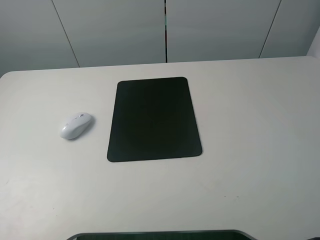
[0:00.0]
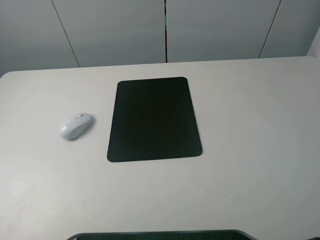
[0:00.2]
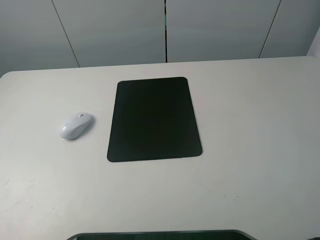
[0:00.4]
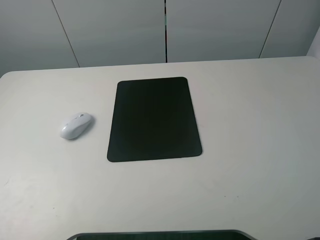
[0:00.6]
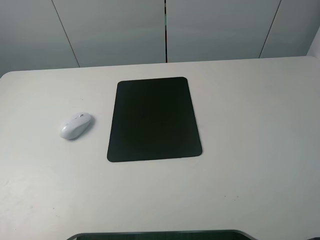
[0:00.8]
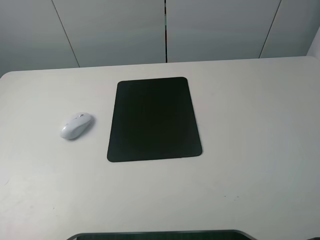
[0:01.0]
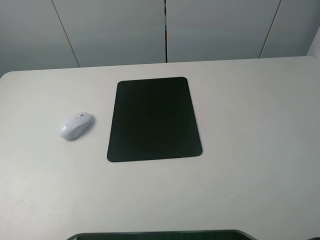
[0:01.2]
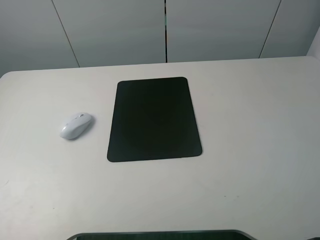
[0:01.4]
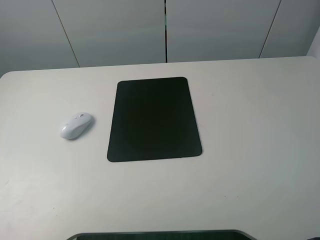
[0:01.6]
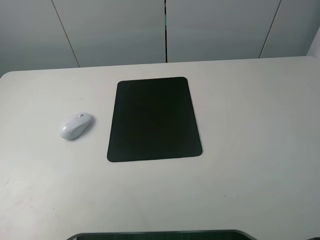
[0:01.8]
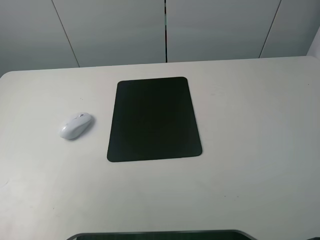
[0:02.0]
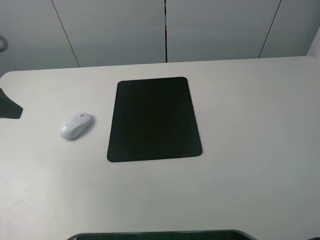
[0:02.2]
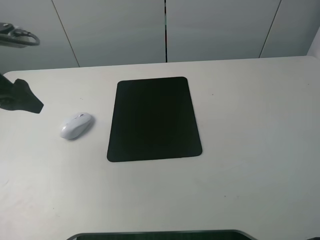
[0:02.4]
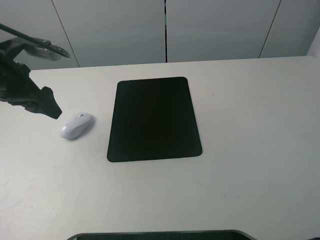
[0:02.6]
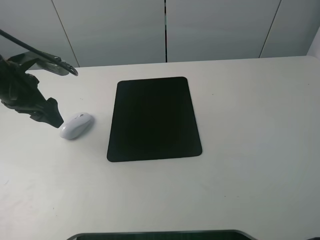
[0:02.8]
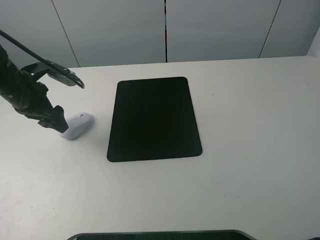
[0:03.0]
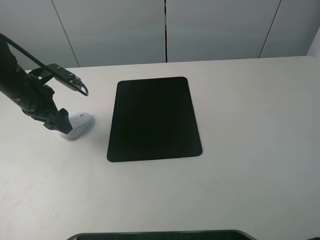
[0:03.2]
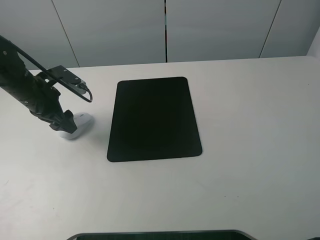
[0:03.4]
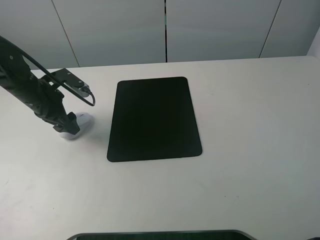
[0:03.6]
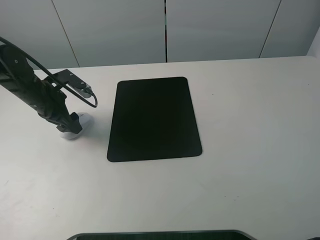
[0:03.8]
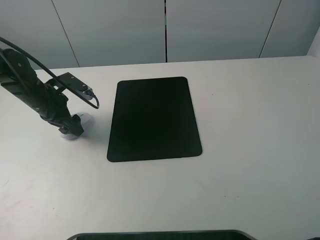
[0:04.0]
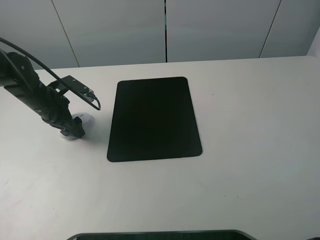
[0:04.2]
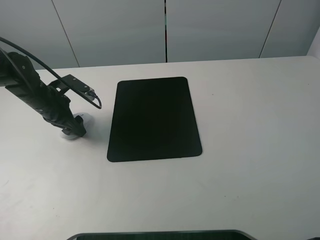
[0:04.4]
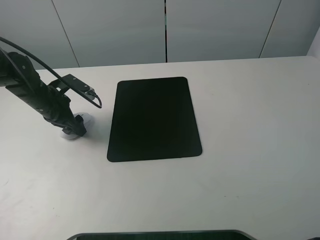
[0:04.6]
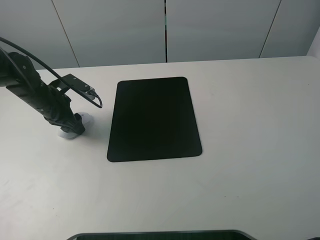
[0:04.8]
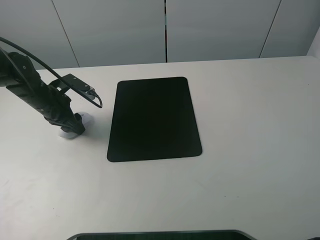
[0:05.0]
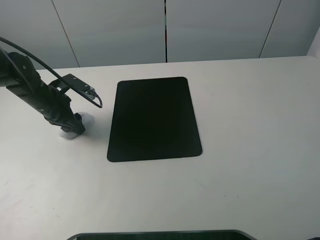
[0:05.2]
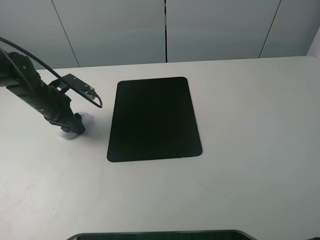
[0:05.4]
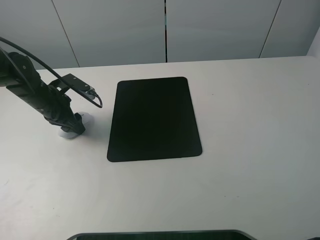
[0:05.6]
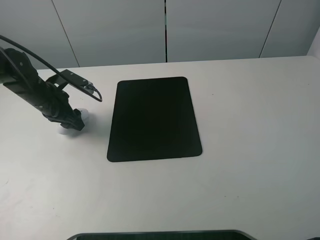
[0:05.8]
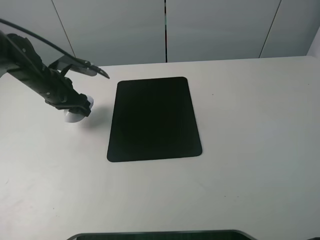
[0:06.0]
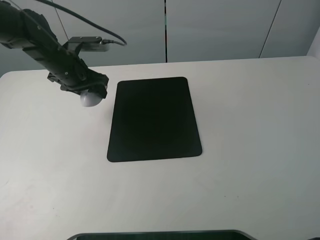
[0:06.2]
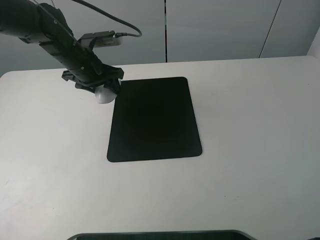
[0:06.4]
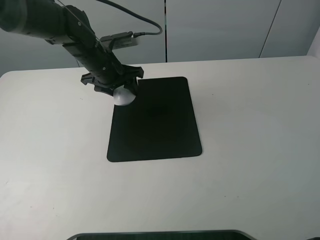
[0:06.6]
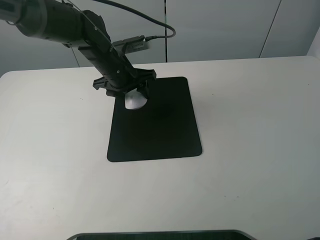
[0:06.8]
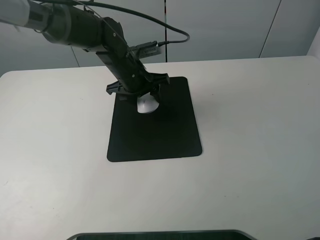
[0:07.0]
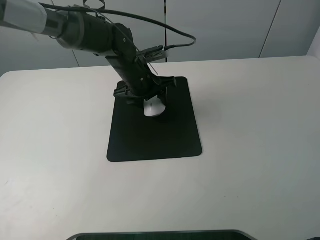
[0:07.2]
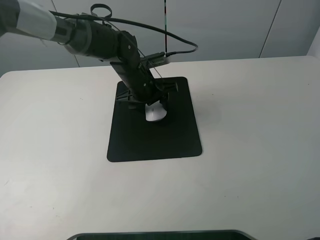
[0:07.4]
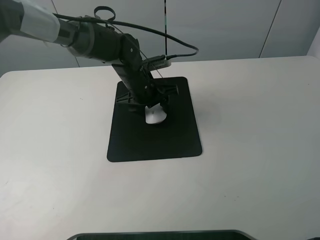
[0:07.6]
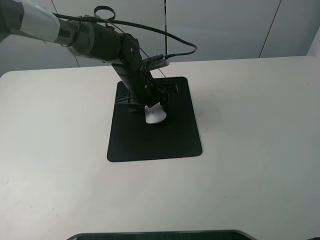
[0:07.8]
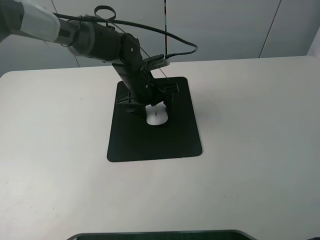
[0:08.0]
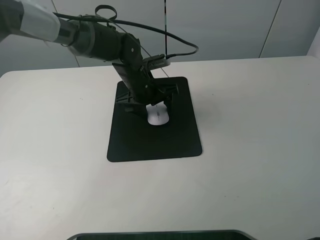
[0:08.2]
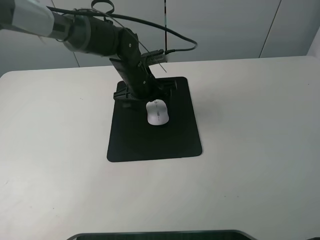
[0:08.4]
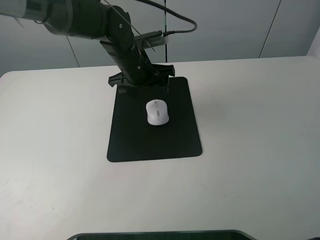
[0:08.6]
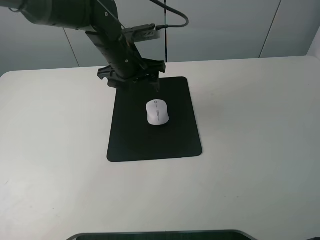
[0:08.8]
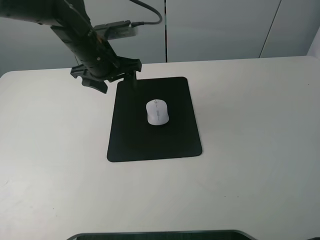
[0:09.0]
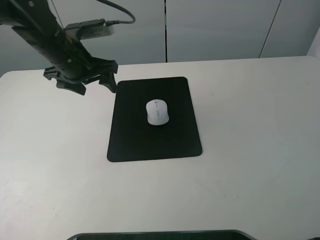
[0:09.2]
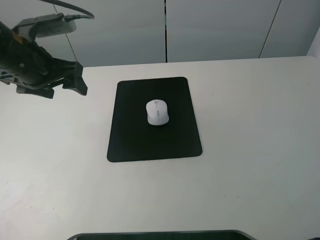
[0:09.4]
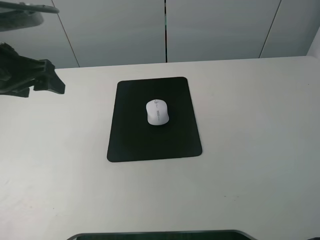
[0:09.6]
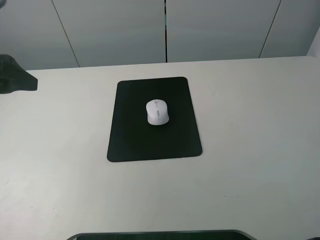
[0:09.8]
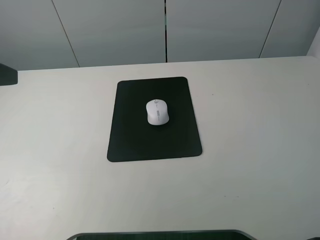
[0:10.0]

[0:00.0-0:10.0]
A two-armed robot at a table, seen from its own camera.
Step, 0:00.0 to 0:05.0: Grasp the mouse with the left gripper.
Step, 0:05.2 to 0:08.2: Place the mouse on the mouse mat with the left gripper.
0:01.4 to 0:02.8: The left gripper travels forward by approximately 30 cm.
0:02.8 to 0:04.2: The left gripper is displaced downward by approximately 10 cm.
0:04.2 to 0:05.8: The left gripper closes.
0:05.8 to 0:07.2: The left gripper goes about 20 cm to the right.
0:07.2 to 0:08.6: The left gripper opens its fingers.
0:08.6 to 0:10.0: The left gripper shifts some 35 cm to the left, backward and upward.

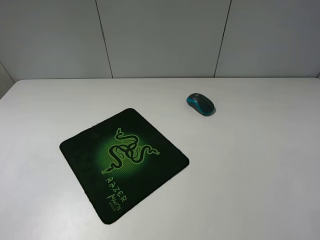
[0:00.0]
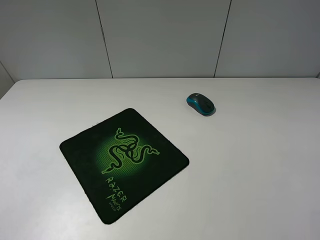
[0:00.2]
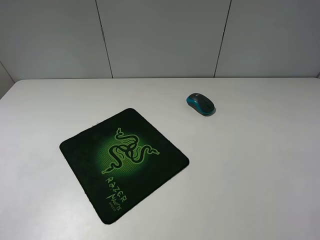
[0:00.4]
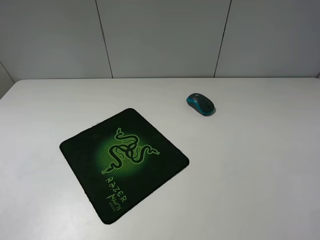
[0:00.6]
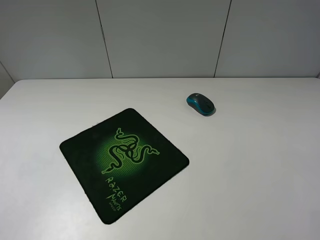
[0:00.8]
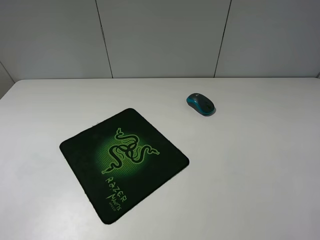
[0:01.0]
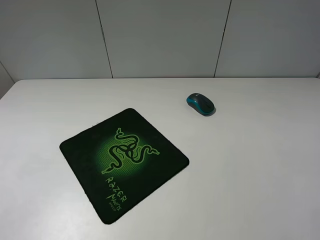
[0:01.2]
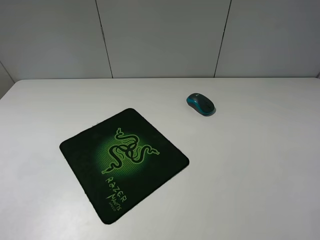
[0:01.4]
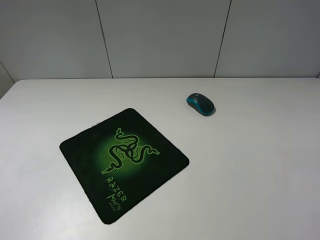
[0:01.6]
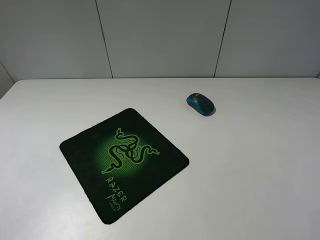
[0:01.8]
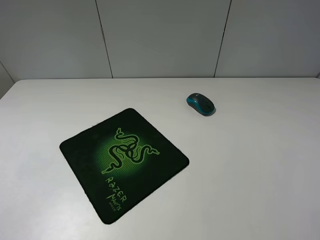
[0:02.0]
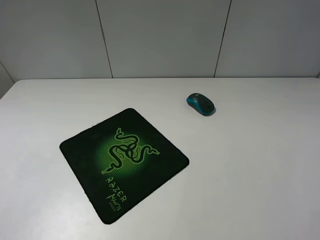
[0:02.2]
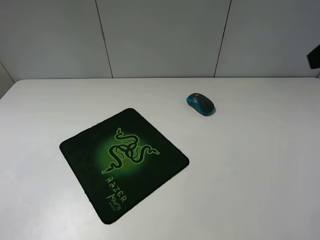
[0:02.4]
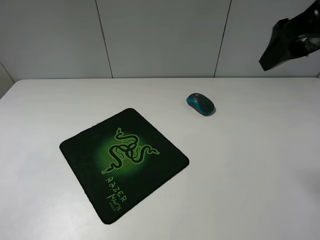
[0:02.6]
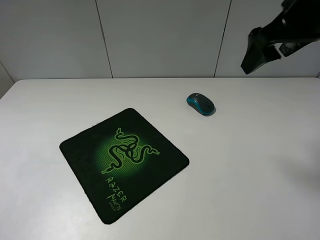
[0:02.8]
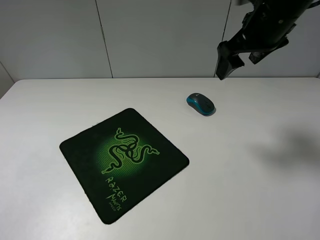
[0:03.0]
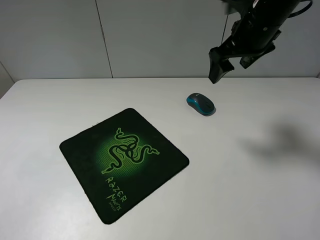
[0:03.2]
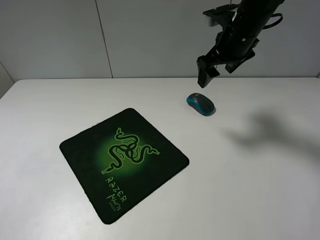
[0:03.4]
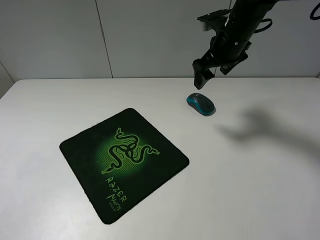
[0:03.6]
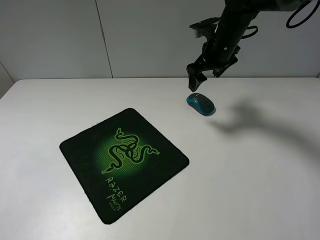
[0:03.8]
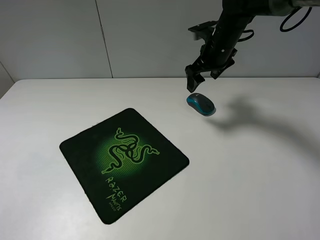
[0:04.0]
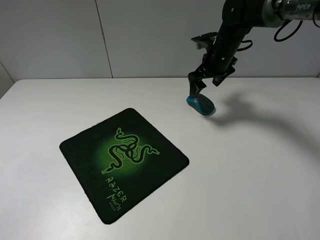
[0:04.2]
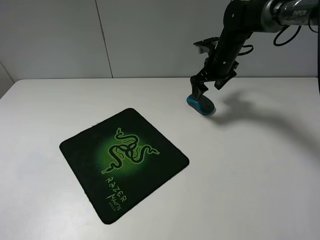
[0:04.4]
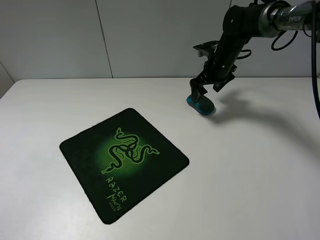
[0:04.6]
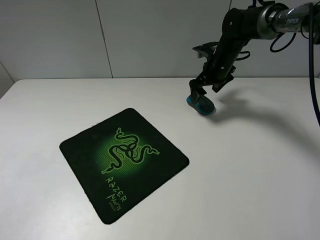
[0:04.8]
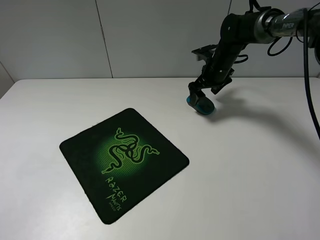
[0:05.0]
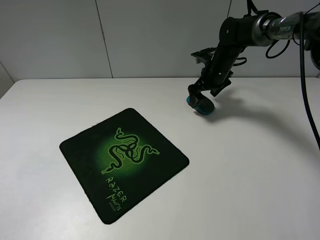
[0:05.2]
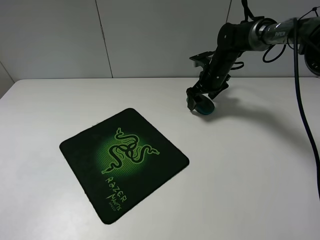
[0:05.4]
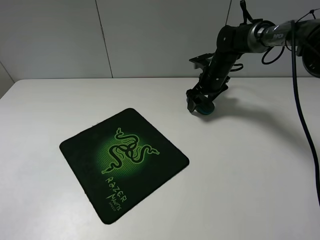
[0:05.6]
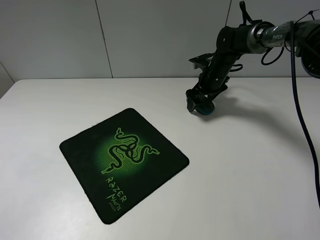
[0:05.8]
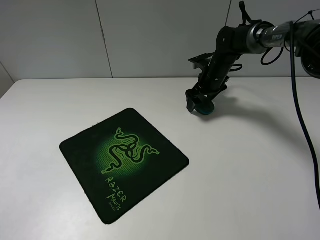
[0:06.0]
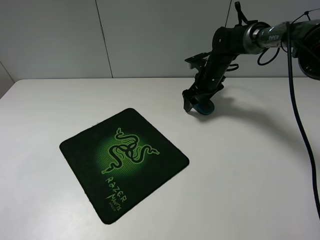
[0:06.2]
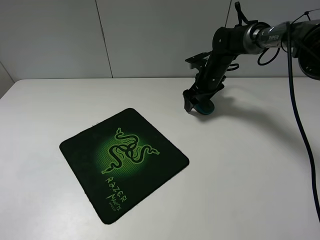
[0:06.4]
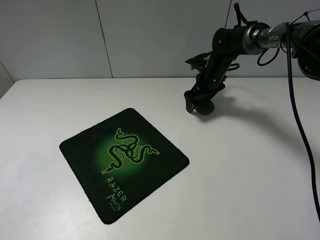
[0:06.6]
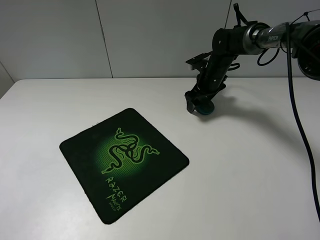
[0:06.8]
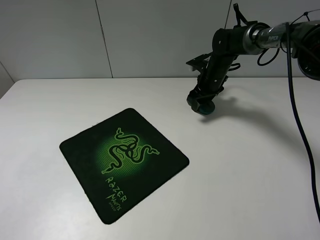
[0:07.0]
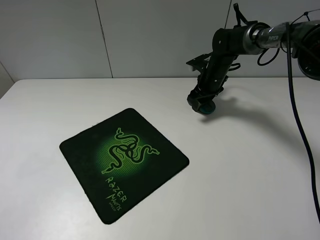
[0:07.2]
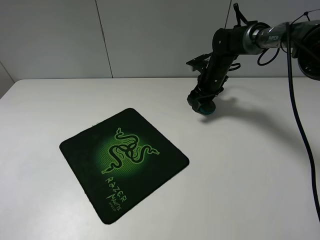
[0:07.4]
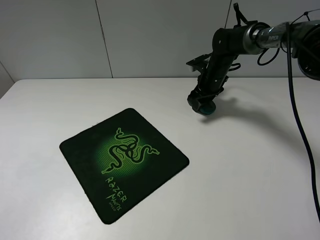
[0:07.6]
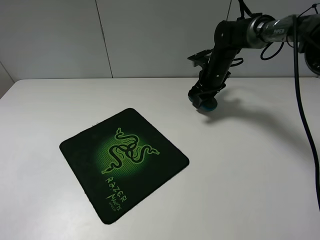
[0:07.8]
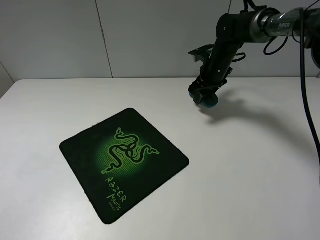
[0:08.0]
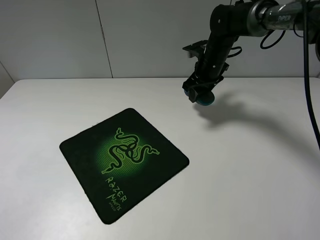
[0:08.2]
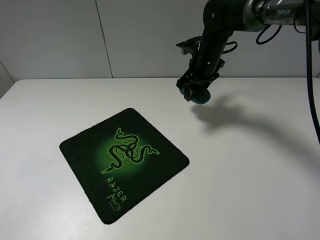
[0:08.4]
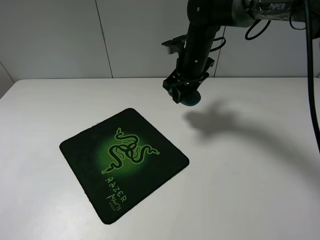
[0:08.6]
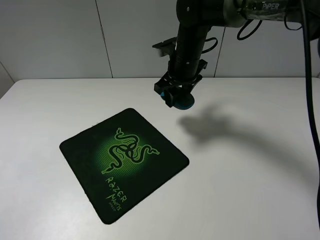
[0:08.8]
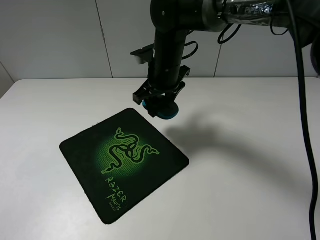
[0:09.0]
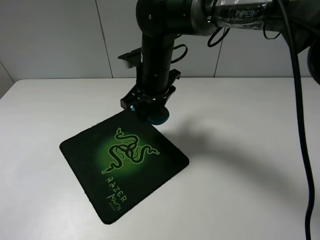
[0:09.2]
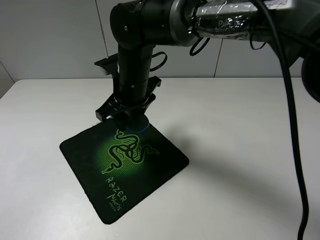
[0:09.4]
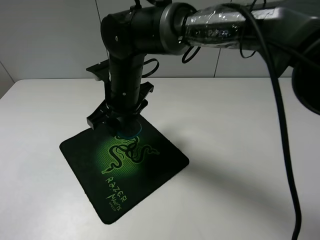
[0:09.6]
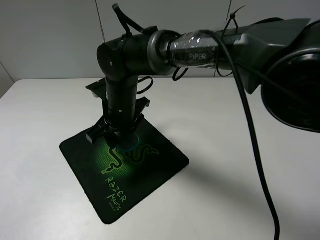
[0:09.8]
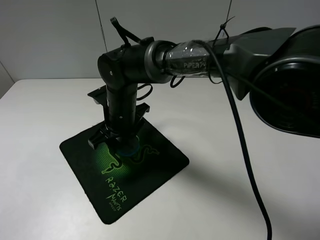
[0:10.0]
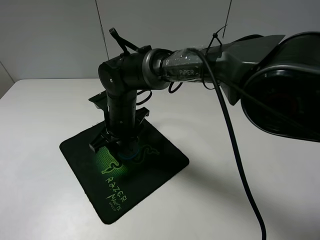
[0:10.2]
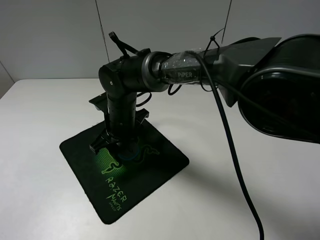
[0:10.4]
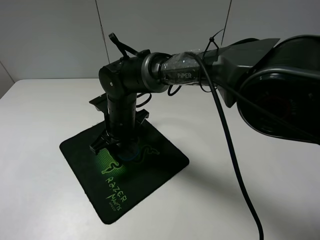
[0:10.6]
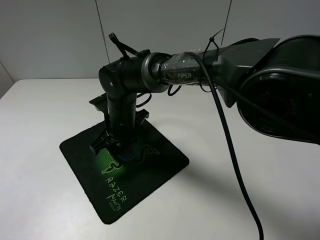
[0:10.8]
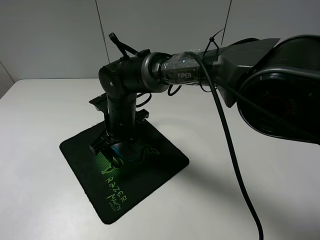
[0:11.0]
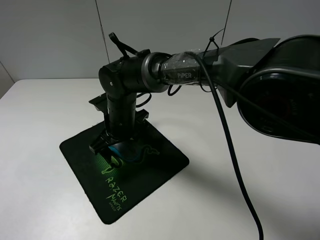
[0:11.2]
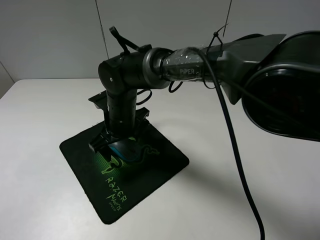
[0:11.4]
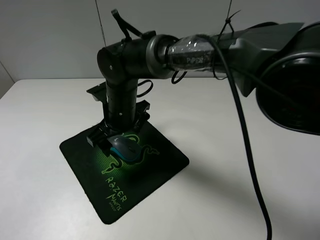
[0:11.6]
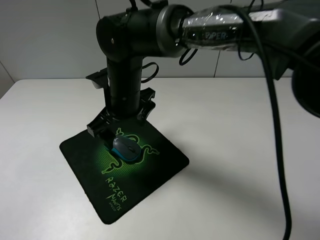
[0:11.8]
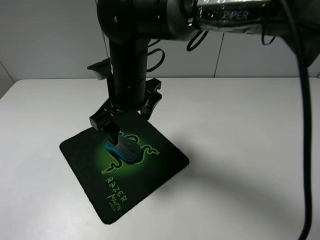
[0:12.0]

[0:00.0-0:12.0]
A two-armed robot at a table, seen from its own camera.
Step, 0:00.0 to 0:07.6: Grasp the mouse with the right gripper.
Step, 0:07.8 to 0:11.2: Place the mouse on the mouse mat with the right gripper.
0:01.6 to 0:03.0: The right gripper moves forward, roughly 35 cm.
0:03.0 to 0:04.4: The right gripper is displaced downward and forward by roughly 20 cm.
0:04.4 to 0:06.0: The right gripper is displaced downward by about 5 cm.
0:06.0 to 0:07.6: The right gripper closes its fingers.
0:07.6 to 0:09.0: The right gripper shifts approximately 20 cm to the left, backward and upward.
0:09.0 to 0:10.4: The right gripper is displaced downward, to the left and backward by some 15 cm.
0:10.4 to 0:12.0: The right gripper is displaced upward by about 10 cm, and opens up.
